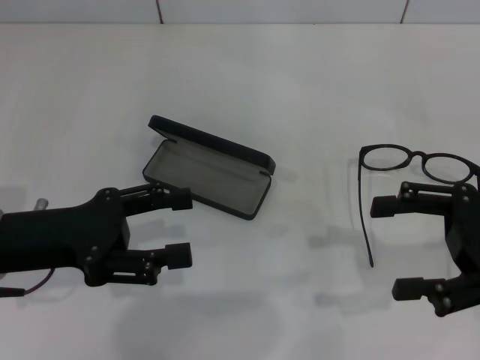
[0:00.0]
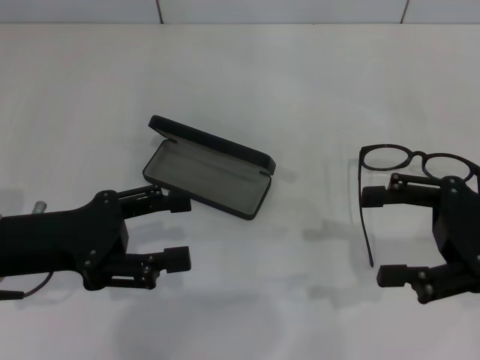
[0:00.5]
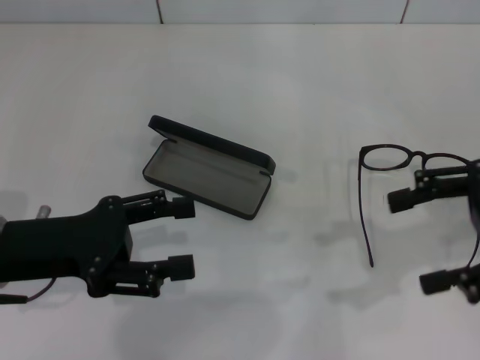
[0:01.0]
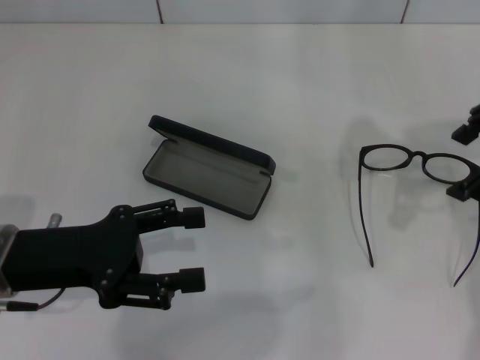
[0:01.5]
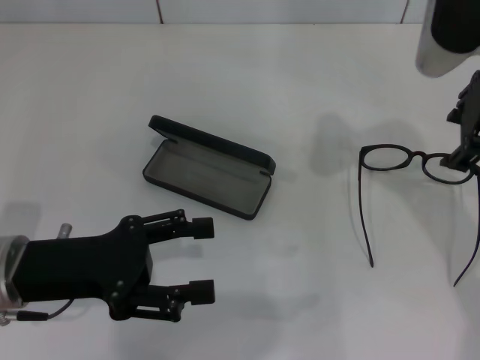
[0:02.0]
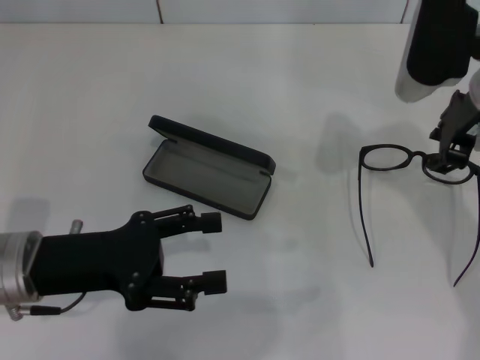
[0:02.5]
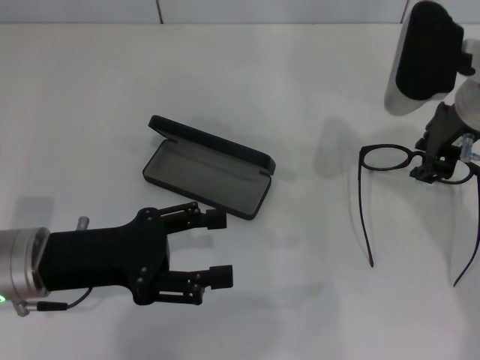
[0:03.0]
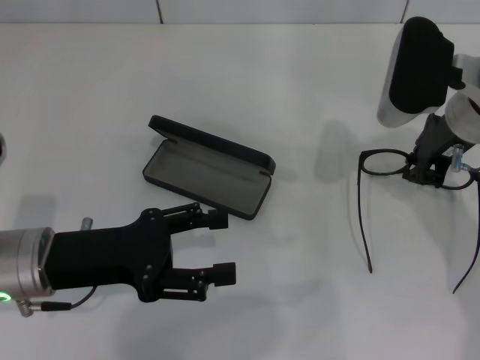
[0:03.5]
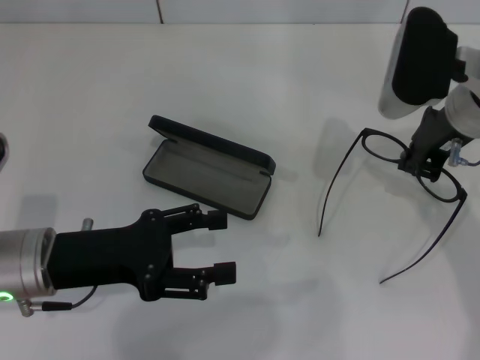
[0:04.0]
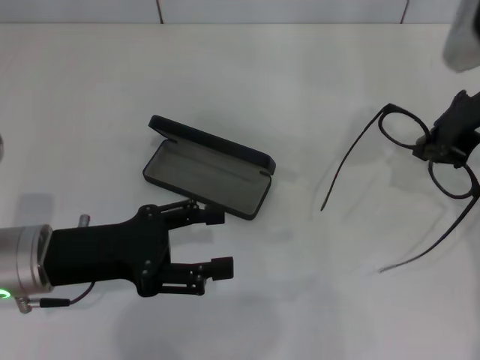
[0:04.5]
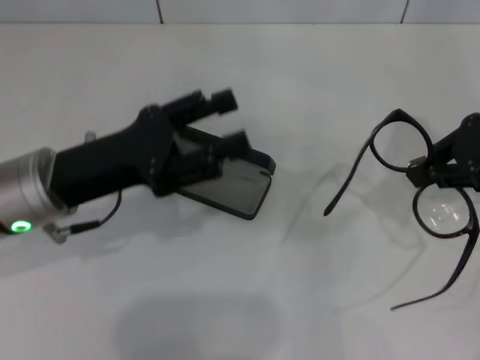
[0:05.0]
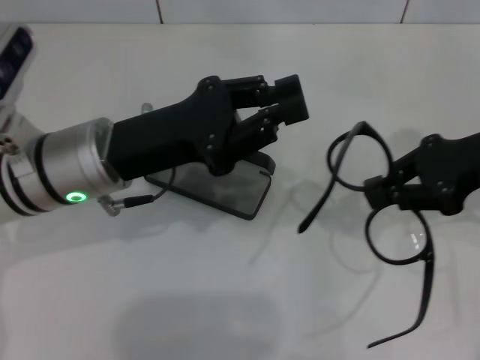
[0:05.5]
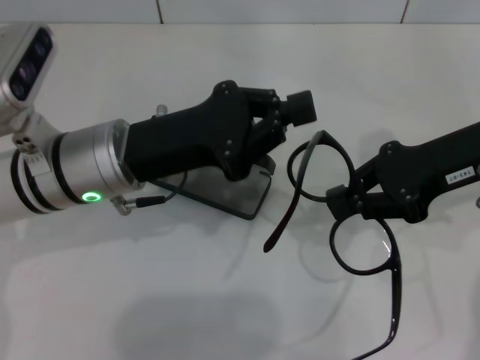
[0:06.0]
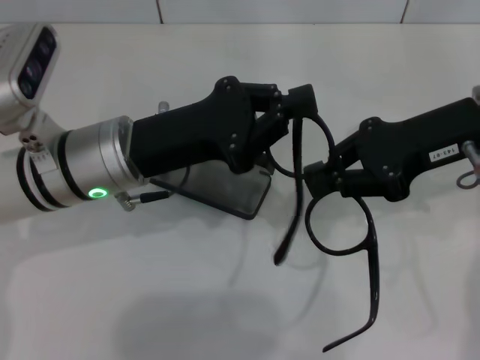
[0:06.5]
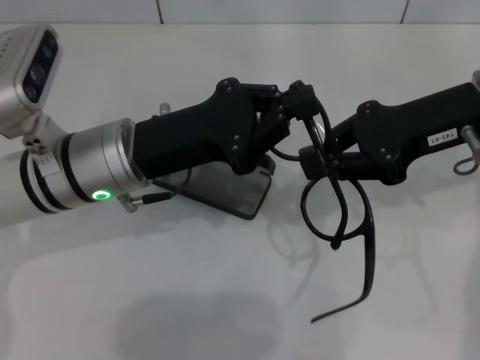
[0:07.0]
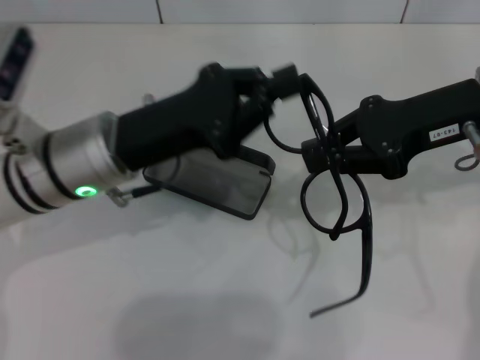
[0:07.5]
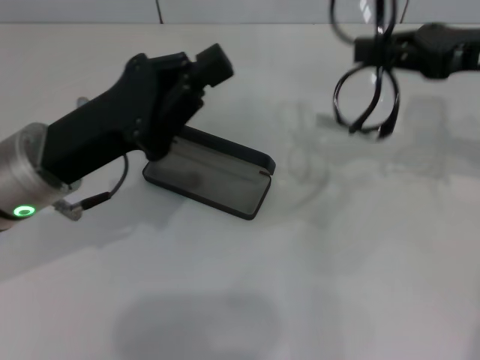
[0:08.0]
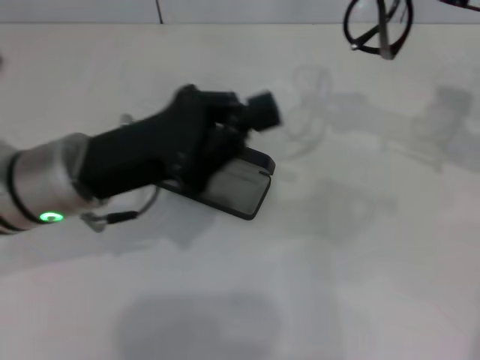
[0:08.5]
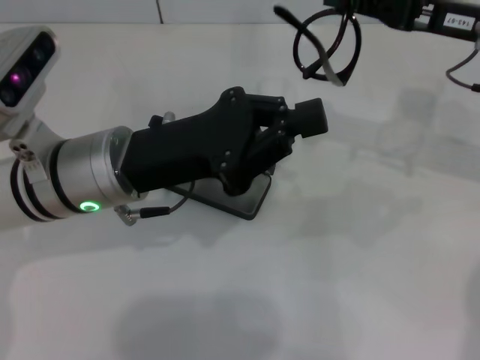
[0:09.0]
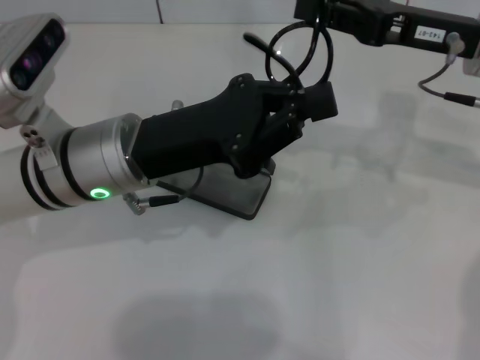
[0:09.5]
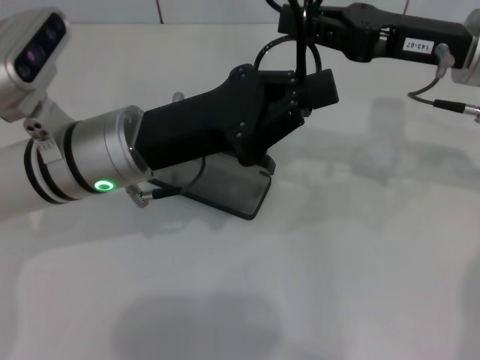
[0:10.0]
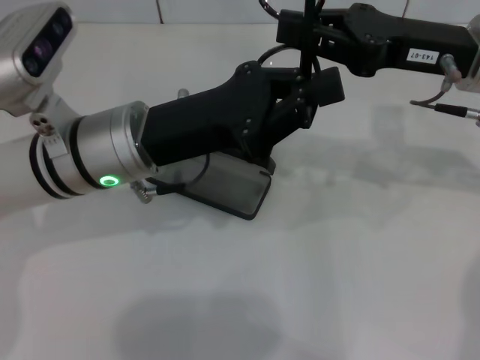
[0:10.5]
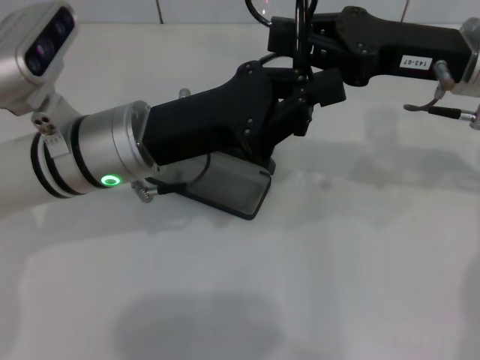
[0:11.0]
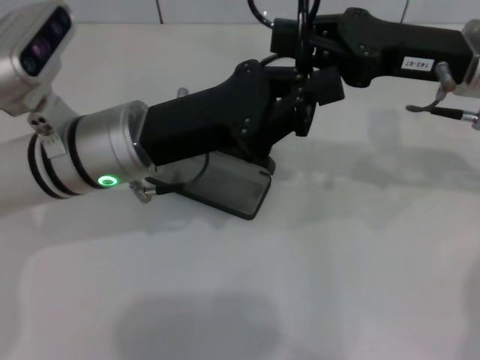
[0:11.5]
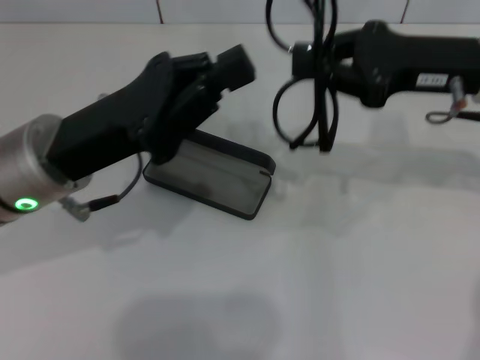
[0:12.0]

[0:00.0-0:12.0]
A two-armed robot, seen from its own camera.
Step, 0:00.0 to 0:03.5: Grab the eyeglass frame with your right hand.
Step, 0:04.0 to 0:11.0: Fold the frame with your left hand.
0:00.0 to 0:02.0: The right gripper shifts roughly 20 cm upward, to the left and forward.
0:02.0 to 0:04.0: The right gripper moves downward, some 10 cm, and closes its fingers.
0:04.0 to 0:06.0: The left gripper heads to the right and forward, covering about 10 cm, and closes its fingers.
0:06.0 to 0:08.0: The right gripper changes place by approximately 5 cm.
0:08.0 to 0:10.0: The right gripper goes some 5 cm to the left. Meanwhile the left gripper travels to the right by approximately 5 cm.
0:10.0 to 0:12.0: The left gripper ends up roughly 5 cm from where it was.

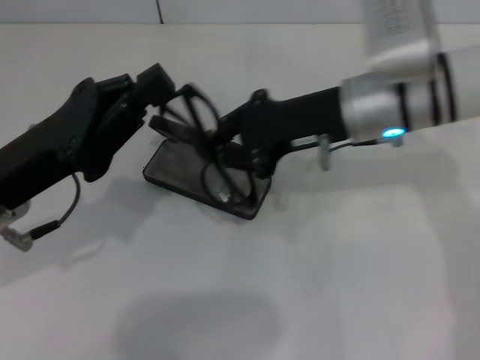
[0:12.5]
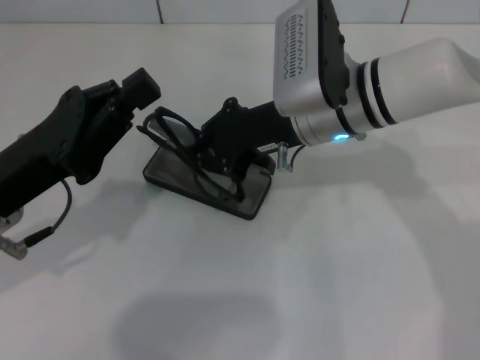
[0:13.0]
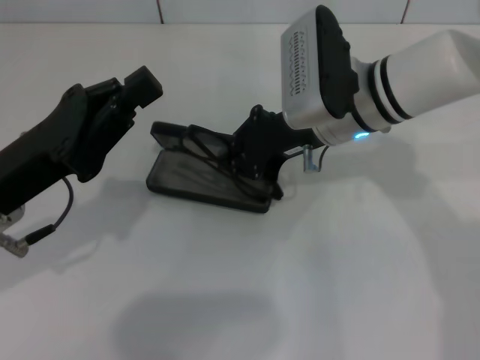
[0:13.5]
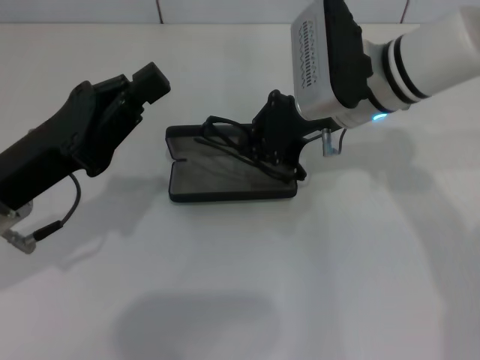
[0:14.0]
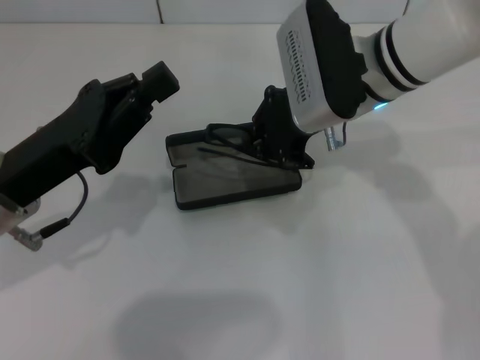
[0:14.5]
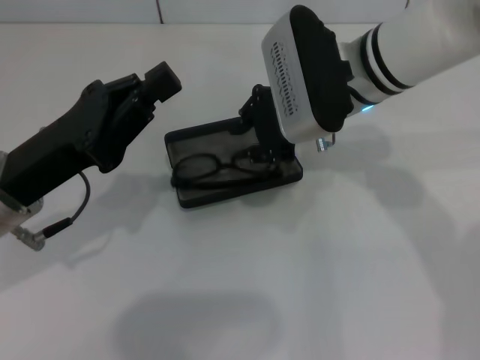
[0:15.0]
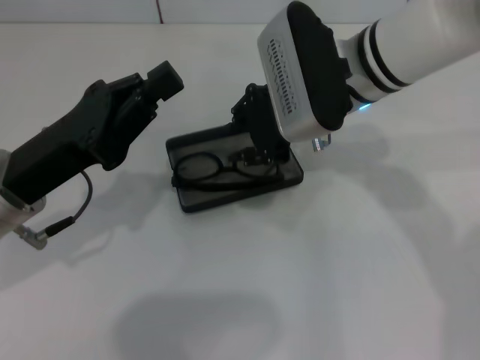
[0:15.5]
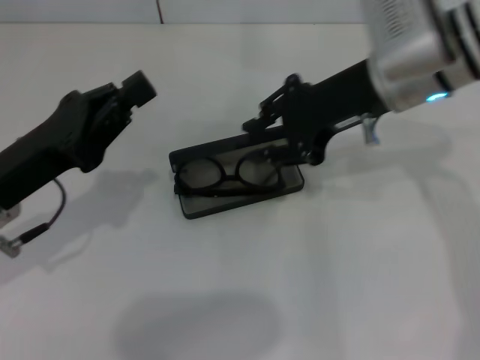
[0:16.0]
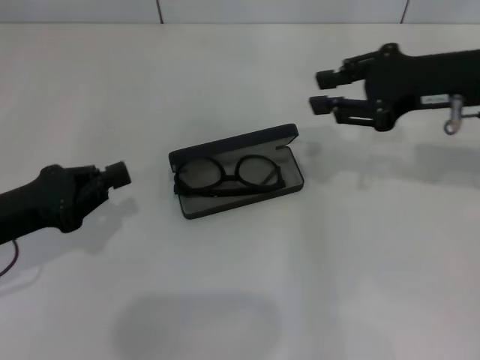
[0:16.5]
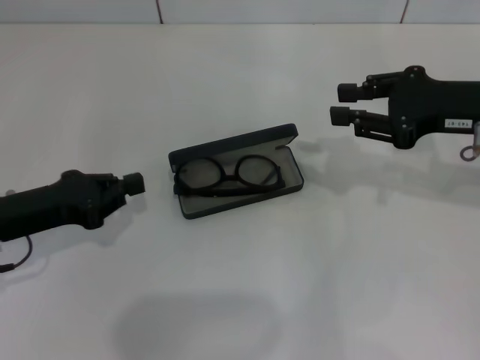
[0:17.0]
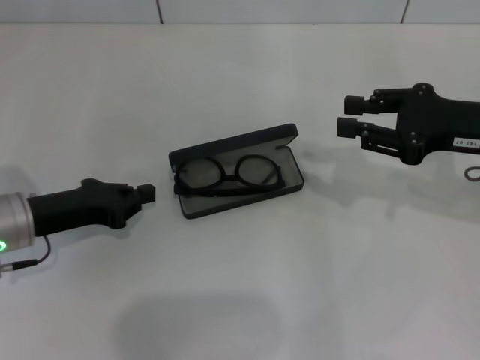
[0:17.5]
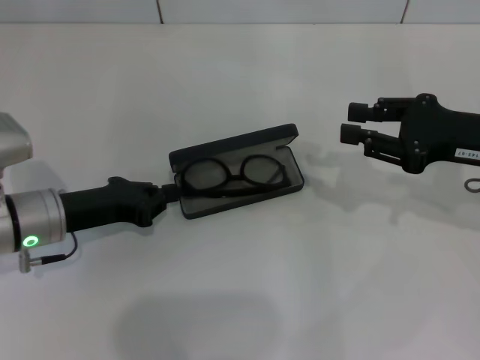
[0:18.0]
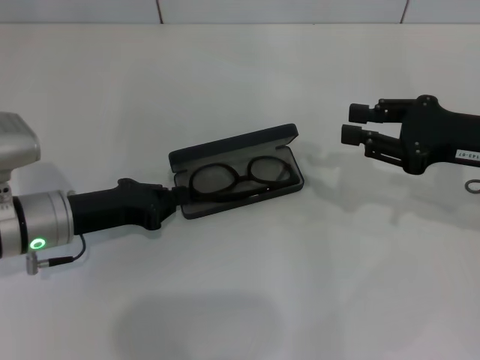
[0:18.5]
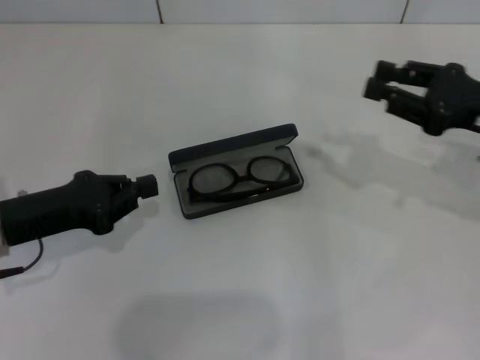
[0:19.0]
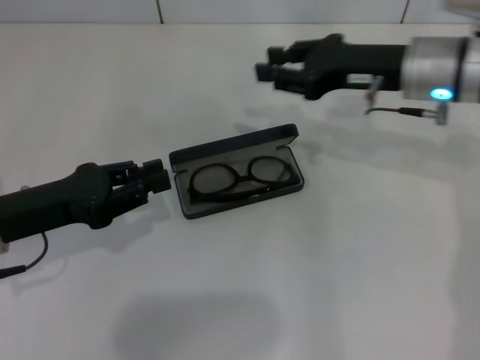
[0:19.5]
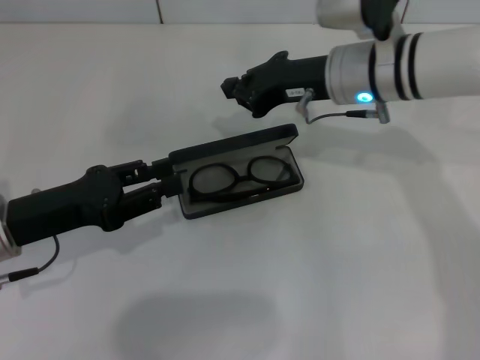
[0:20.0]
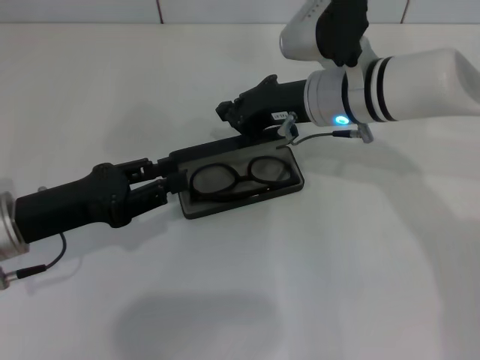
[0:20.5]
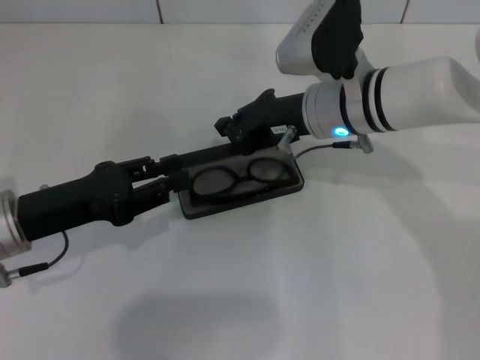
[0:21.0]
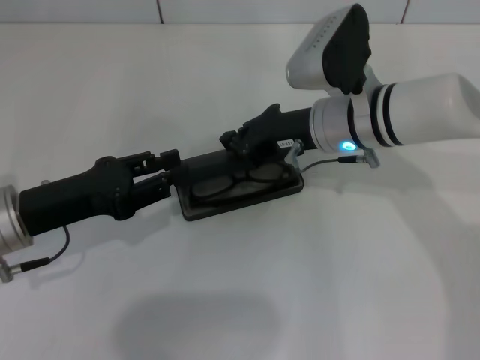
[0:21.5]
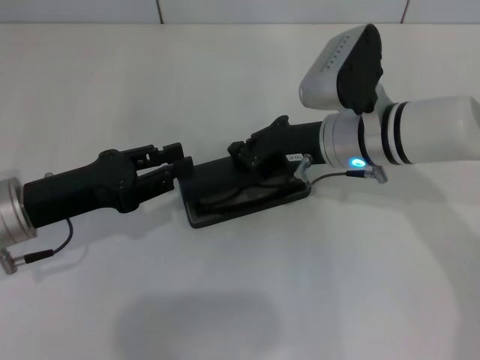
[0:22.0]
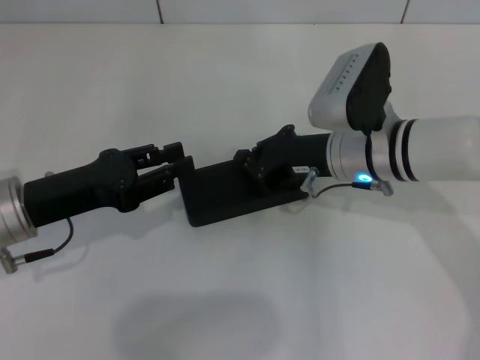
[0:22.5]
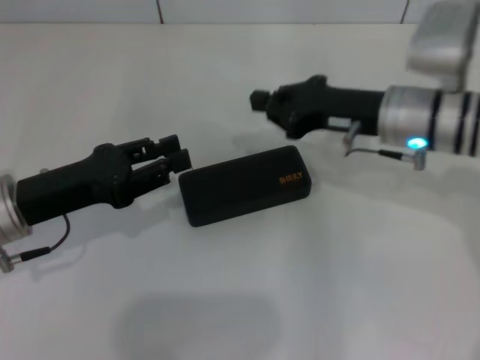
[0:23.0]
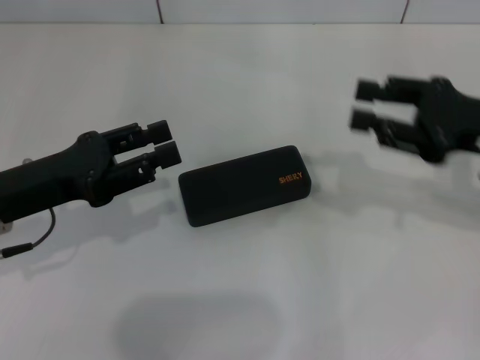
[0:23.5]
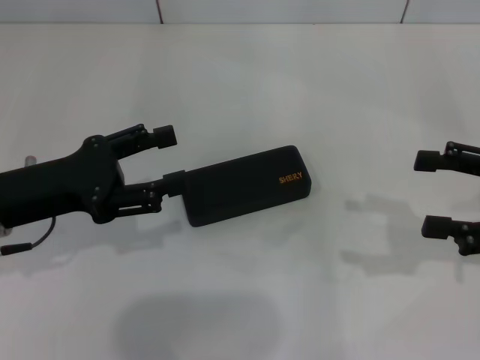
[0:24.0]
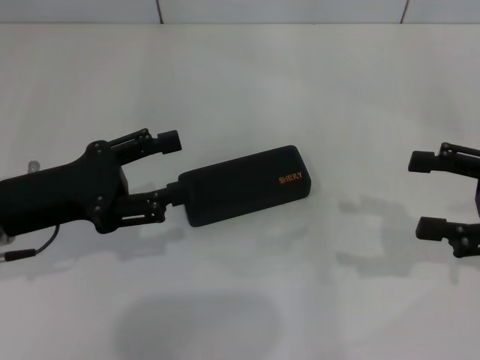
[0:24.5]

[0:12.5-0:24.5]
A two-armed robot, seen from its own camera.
Step, 0:12.5 to 0:18.0: Put the glasses into the case with your right hand.
Step, 0:18.5 to 0:22.0: Close the glasses case with your right hand.
0:14.5 to 0:16.5: The right gripper travels to the right by about 15 cm, while the left gripper moves to the left, roughly 5 cm.
0:16.5 to 0:18.5: The left gripper goes approximately 10 cm to the right and forward. Meanwhile the right gripper moves downward, some 5 cm.
0:18.5 to 0:20.5: The left gripper moves roughly 5 cm, and opens up, while the right gripper moves to the left, about 20 cm, and closes its fingers.
0:20.5 to 0:22.5: The right gripper moves approximately 5 cm.
0:22.5 to 0:24.5: The right gripper travels to the right by some 20 cm, and opens, while the left gripper opens its fingers.
